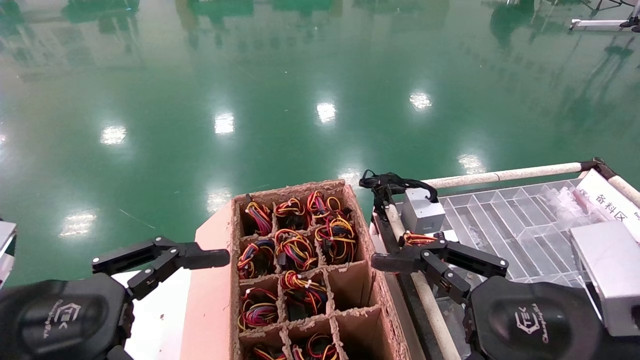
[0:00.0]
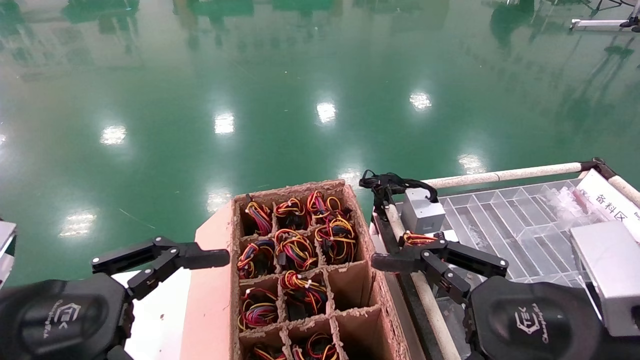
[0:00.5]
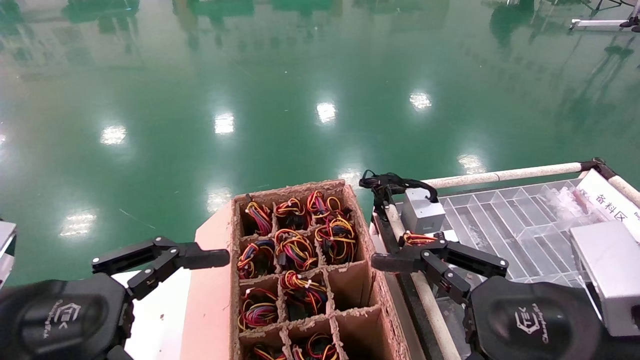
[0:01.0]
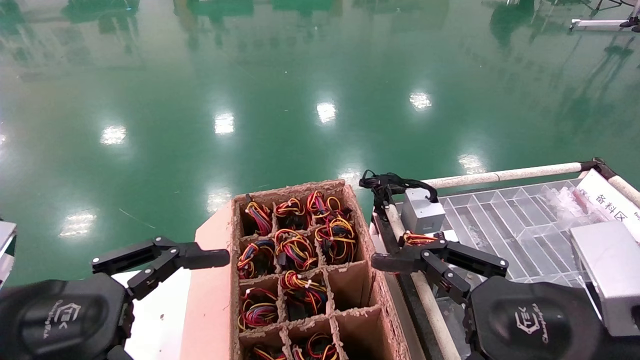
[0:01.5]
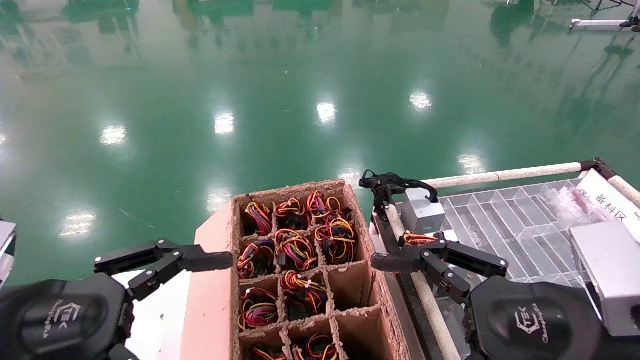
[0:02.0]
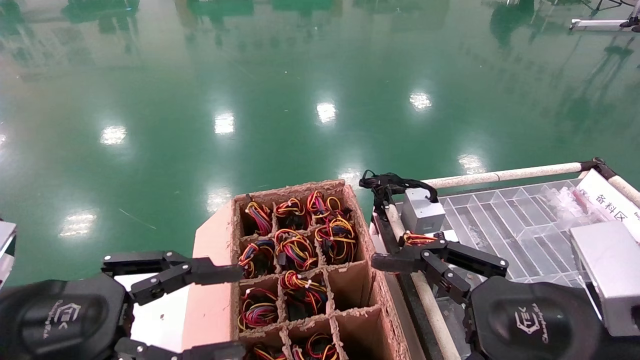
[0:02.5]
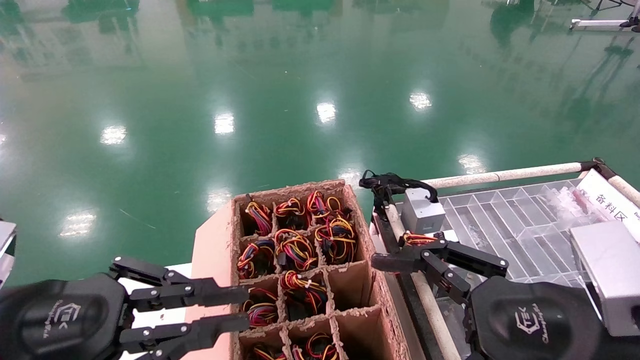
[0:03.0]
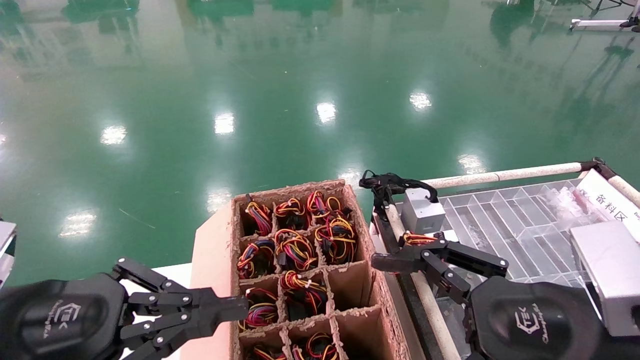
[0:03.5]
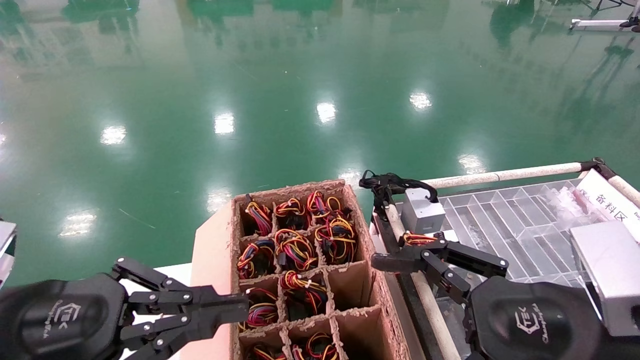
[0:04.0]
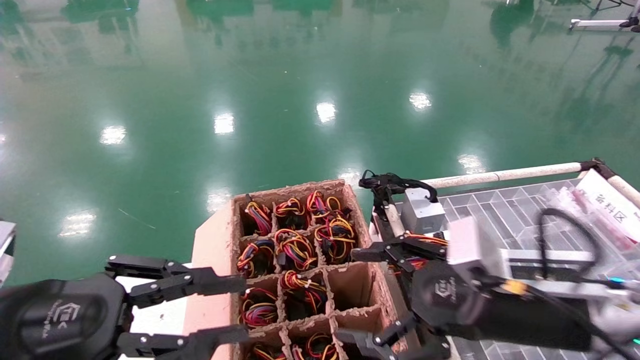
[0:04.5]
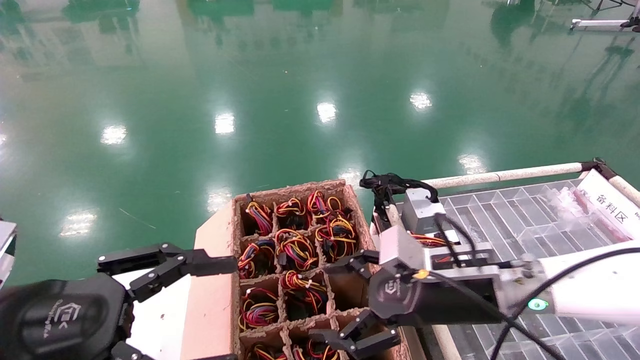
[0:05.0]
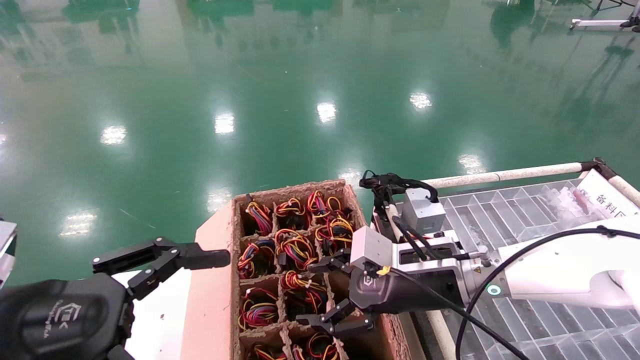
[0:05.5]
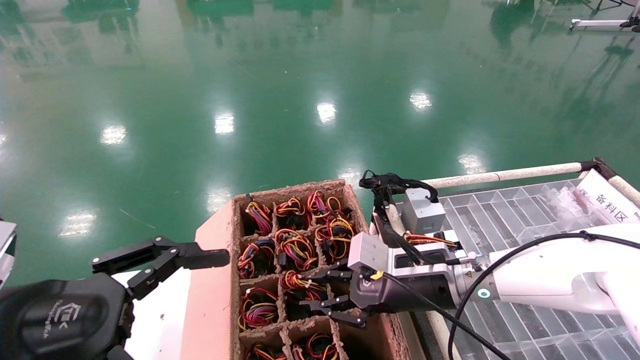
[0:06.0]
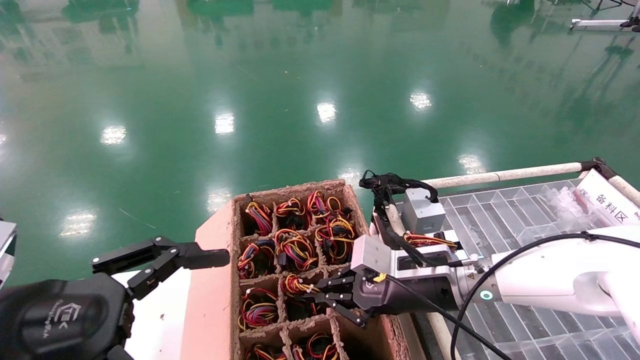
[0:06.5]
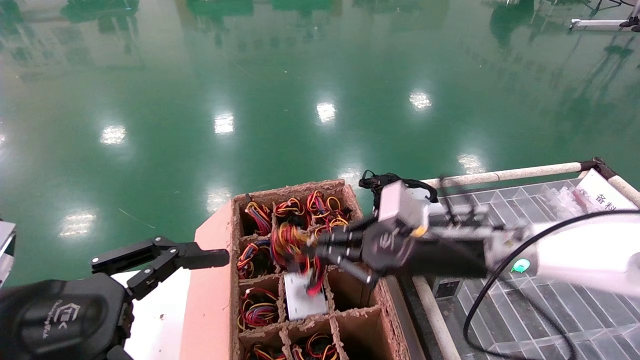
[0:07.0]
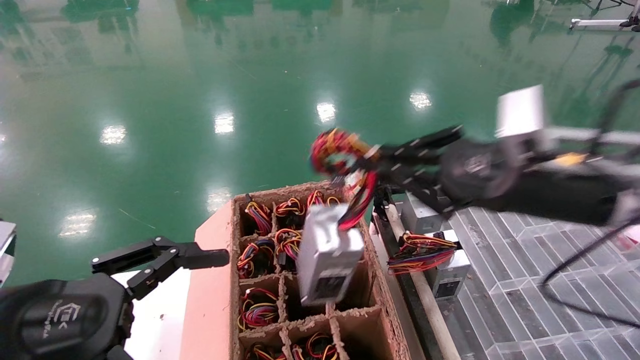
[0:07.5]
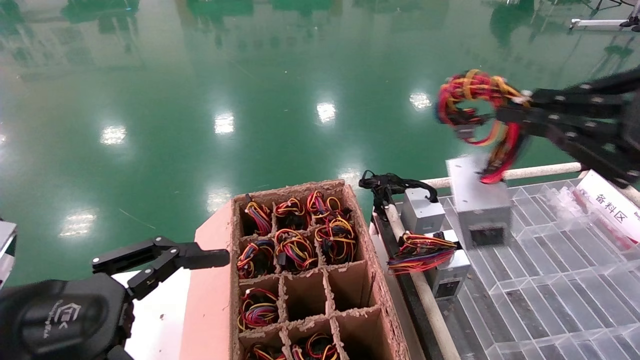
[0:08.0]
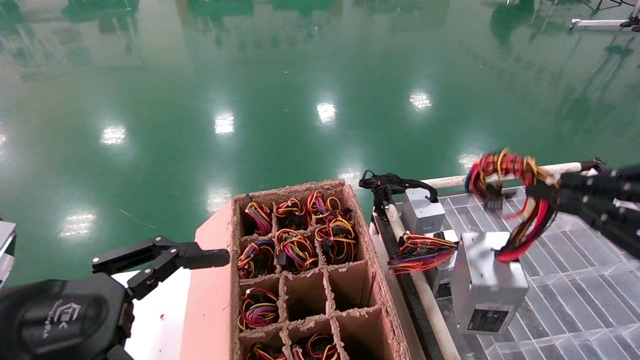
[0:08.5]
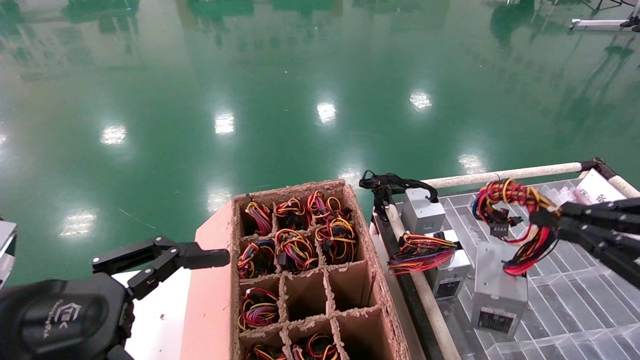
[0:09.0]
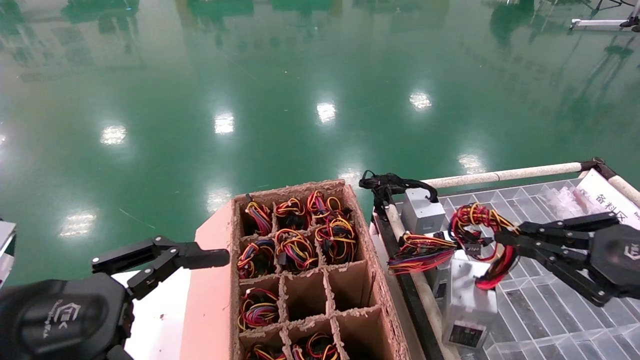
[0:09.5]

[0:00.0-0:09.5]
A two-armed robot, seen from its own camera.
Step, 0:04.5 to 0:06.5: Grab and lift the power supply from the large box.
0:00.0 to 0:02.0: Both grippers stay put.
0:02.0 to 0:04.0: The left gripper closes up.
0:04.0 to 0:05.5: The right gripper shifts some 20 cm forward and to the left. Meanwhile the left gripper opens.
0:05.5 to 0:07.5: The right gripper goes approximately 20 cm upward, to the right and backward, and closes up.
0:07.5 to 0:09.5: The right gripper heads to the right, downward and backward, covering roughly 15 cm.

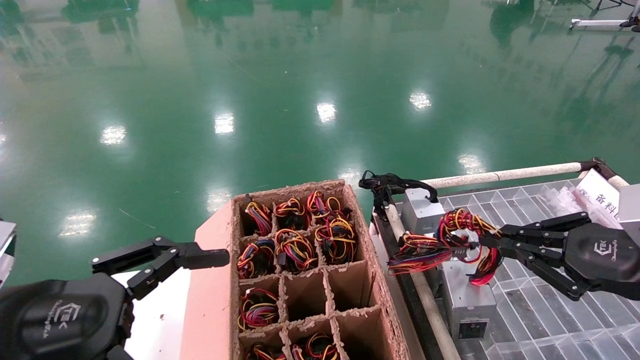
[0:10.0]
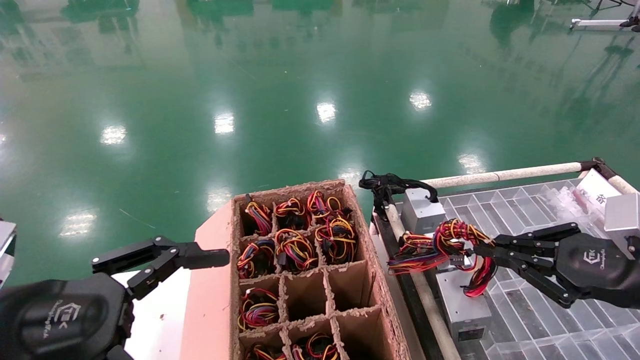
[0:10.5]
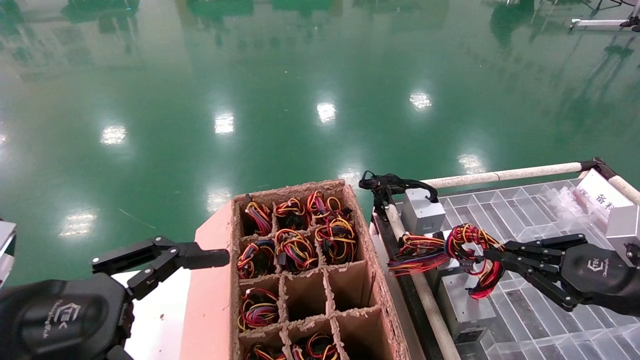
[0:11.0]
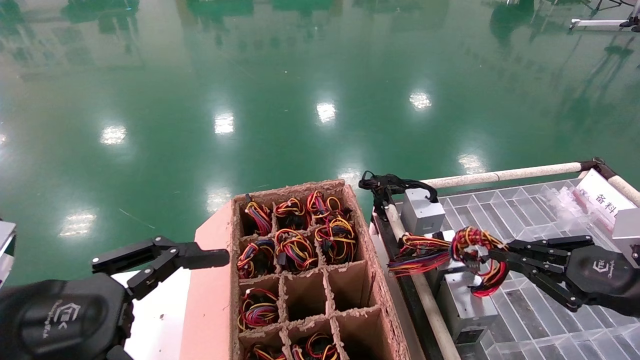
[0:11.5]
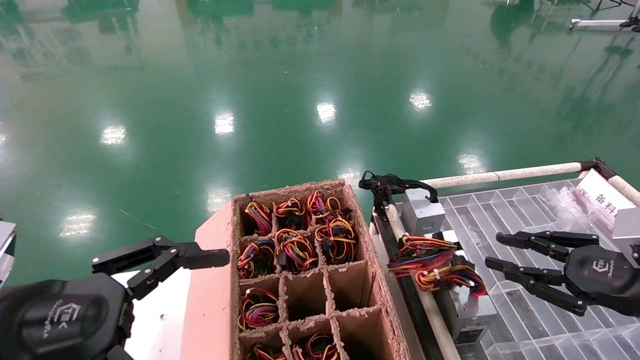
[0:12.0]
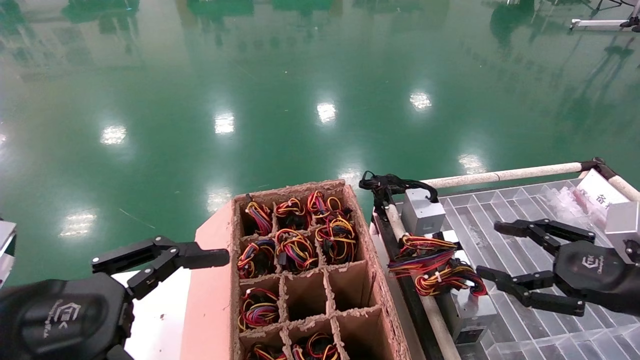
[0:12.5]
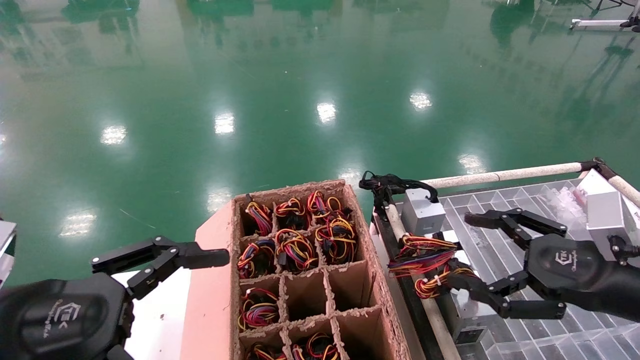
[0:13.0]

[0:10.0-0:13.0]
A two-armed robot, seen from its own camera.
0:10.0 to 0:11.5: The right gripper changes place by approximately 5 cm.
0:11.5 to 0:13.0: The right gripper goes about 5 cm to the left, and opens its fingers.
